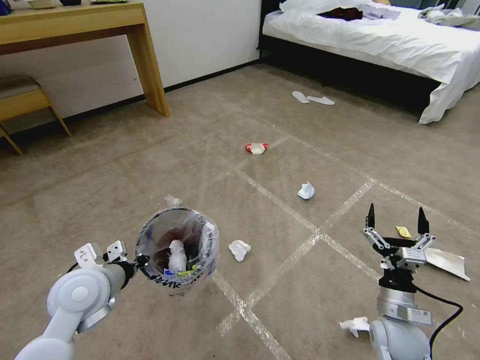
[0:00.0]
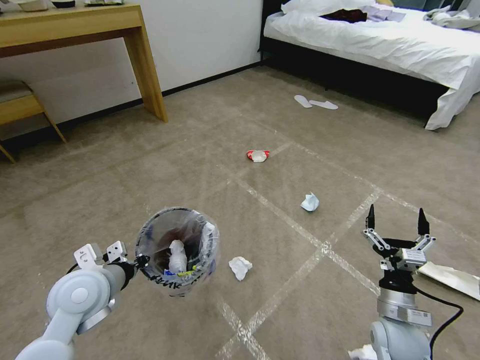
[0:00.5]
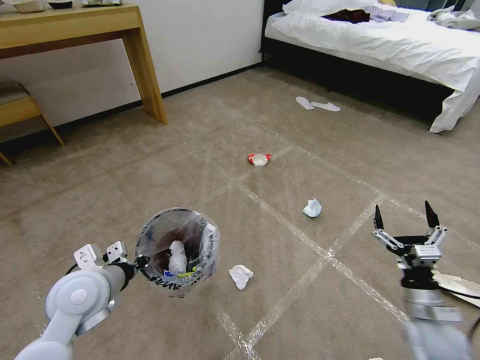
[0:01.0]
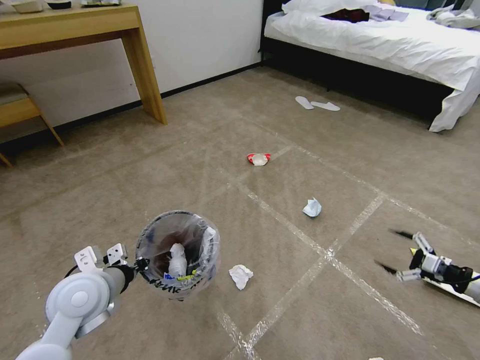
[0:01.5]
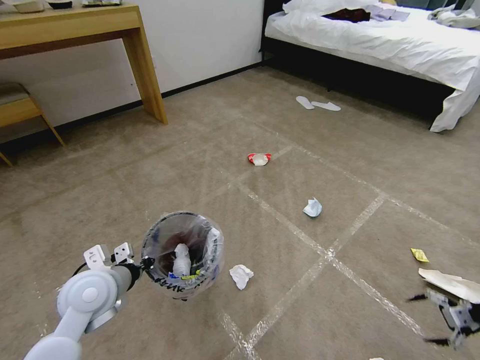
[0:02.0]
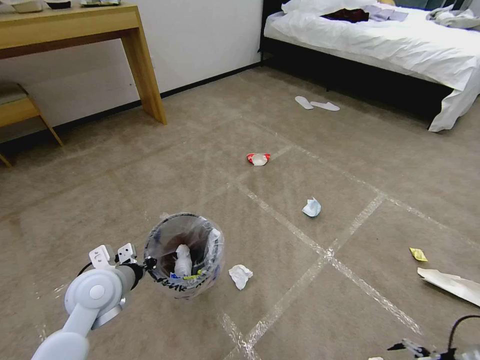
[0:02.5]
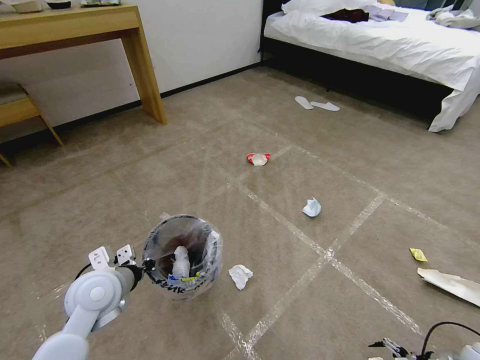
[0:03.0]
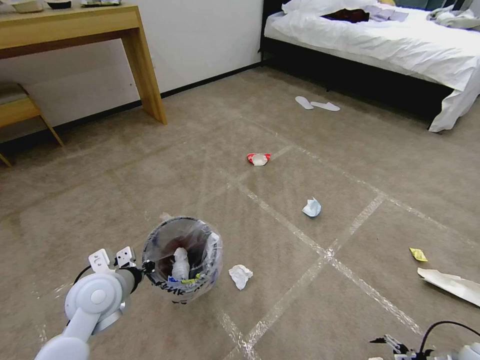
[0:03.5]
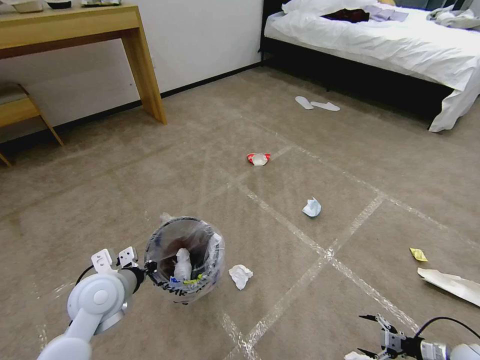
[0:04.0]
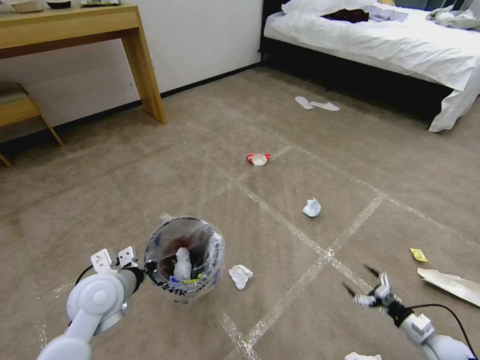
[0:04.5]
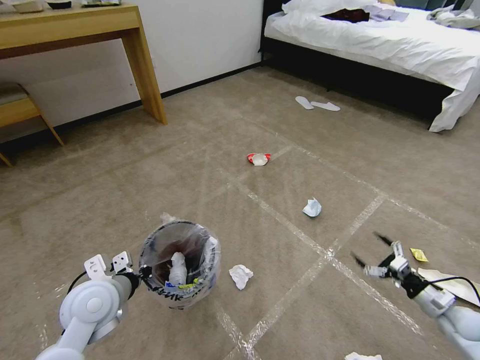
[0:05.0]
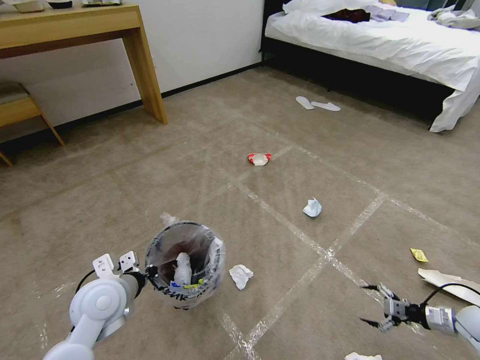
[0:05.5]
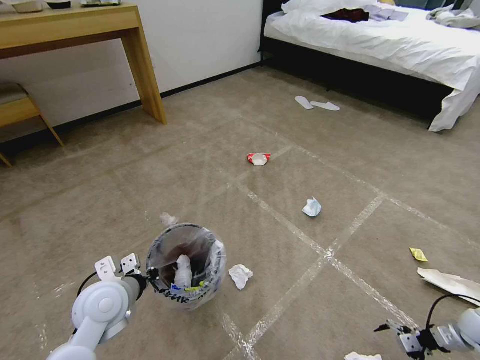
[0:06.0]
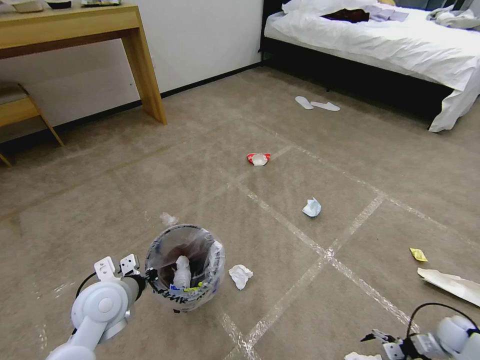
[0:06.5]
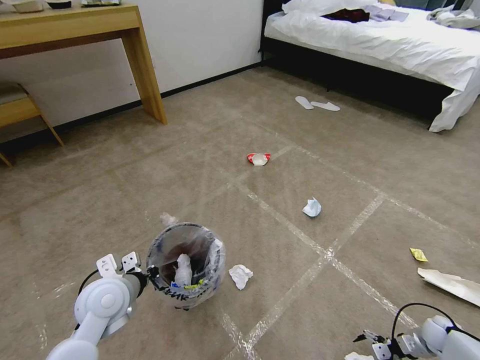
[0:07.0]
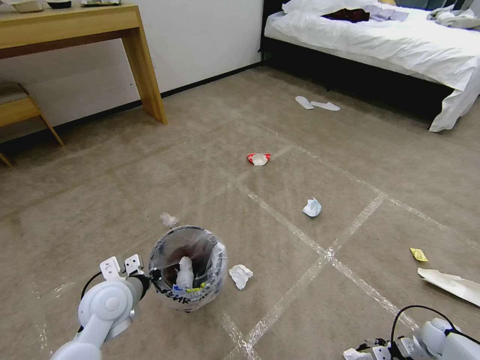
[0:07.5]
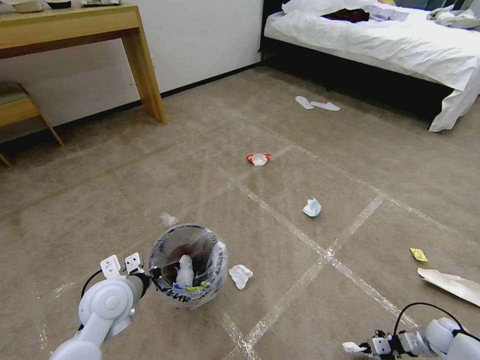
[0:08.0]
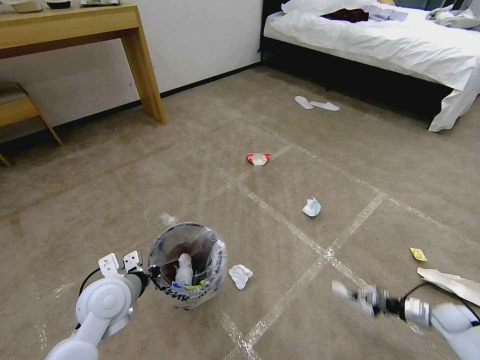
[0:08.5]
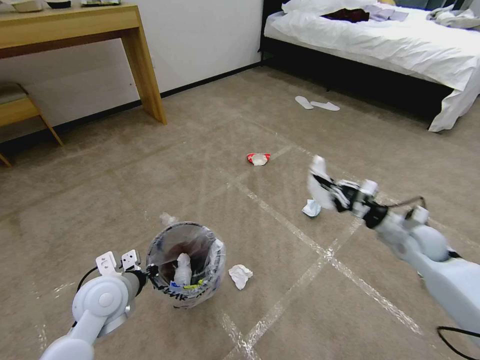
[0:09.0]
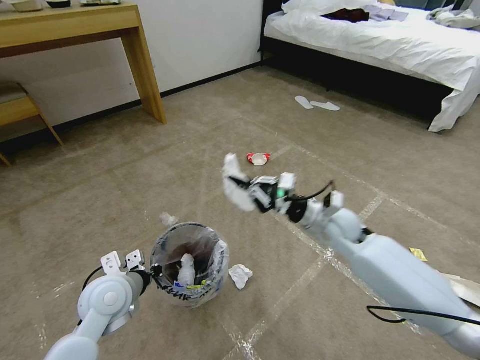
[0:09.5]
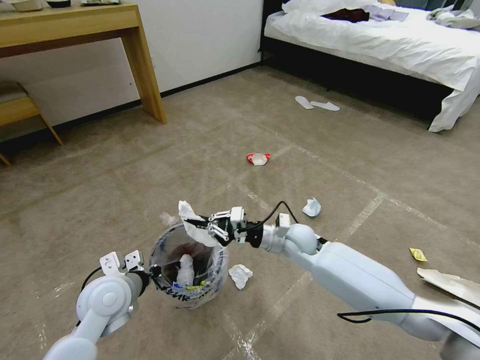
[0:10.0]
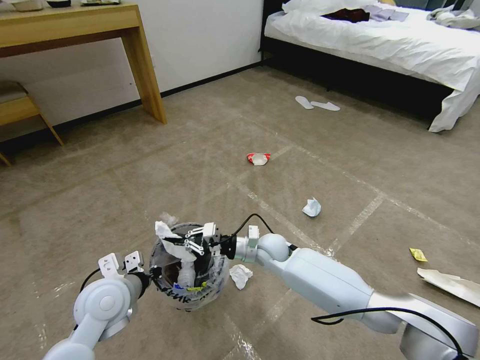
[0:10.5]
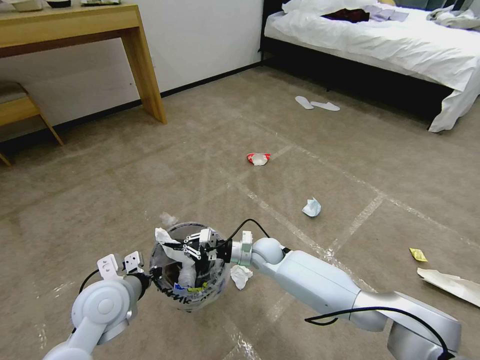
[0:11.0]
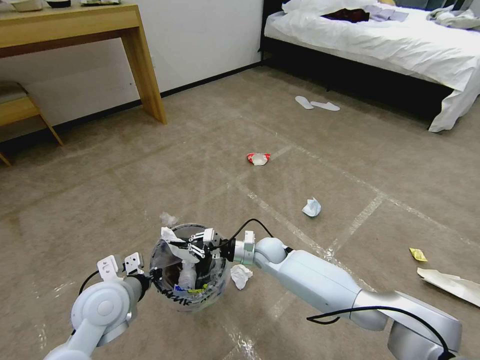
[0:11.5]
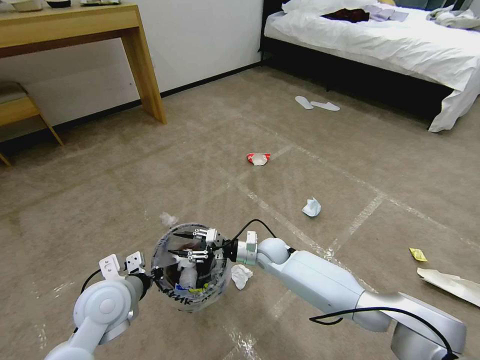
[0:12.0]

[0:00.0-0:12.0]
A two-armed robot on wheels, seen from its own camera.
Task of the whole recording: Pick up the trash bin and place the garbage on the floor into it.
0:00.0 to 0:02.0: The right gripper heads to the right, covering roughly 35 cm.
0:02.0 to 0:04.0: The right gripper moves downward and to the left, some 20 cm.
0:04.0 to 0:06.0: The right gripper is displaced forward and upward by some 10 cm, and travels to the left and back again, approximately 5 cm each way.
0:06.0 to 0:08.0: The right gripper heads downward, covering approximately 10 cm, and closes.
0:08.0 to 0:10.0: The right gripper goes roughly 50 cm to the left and upward.
0:10.0 to 0:12.0: The right gripper moves downward and to the left, about 10 cm, and opens up.

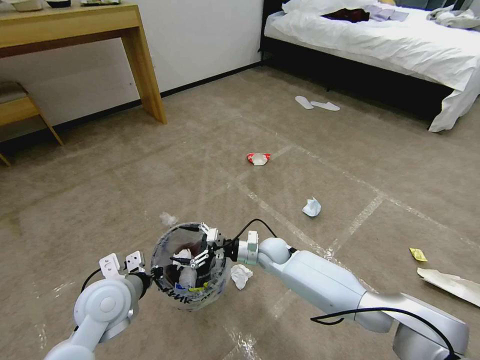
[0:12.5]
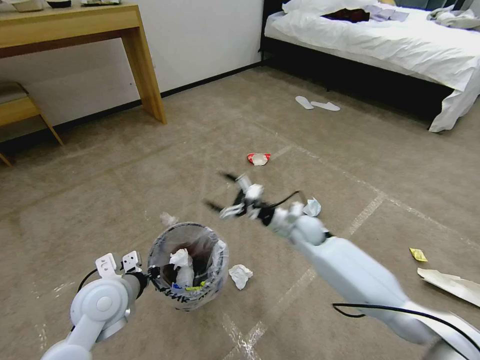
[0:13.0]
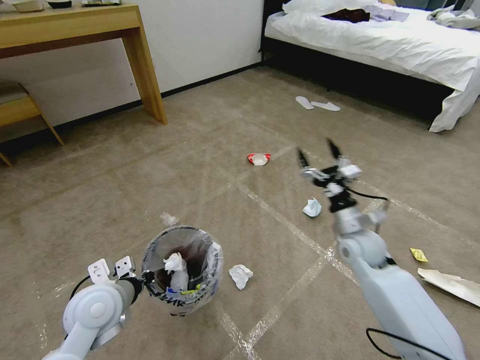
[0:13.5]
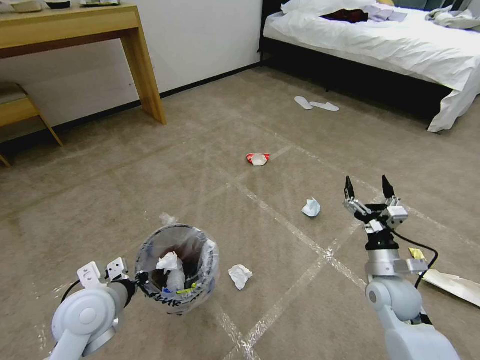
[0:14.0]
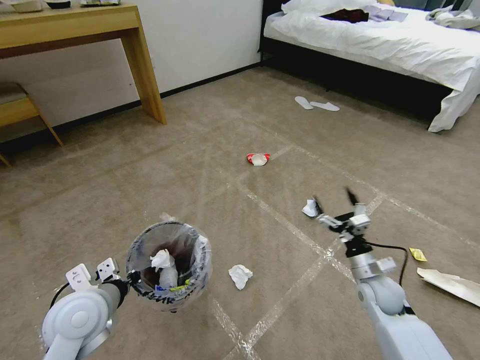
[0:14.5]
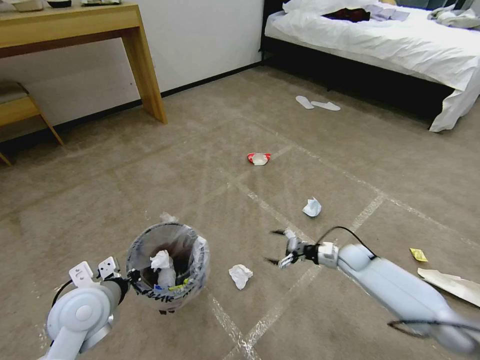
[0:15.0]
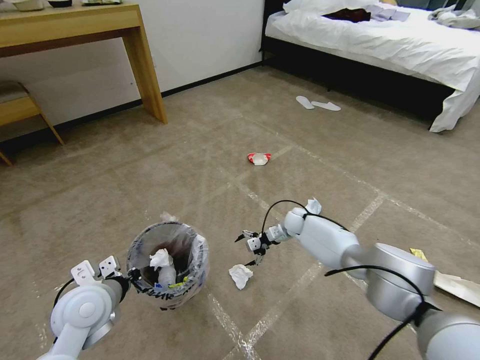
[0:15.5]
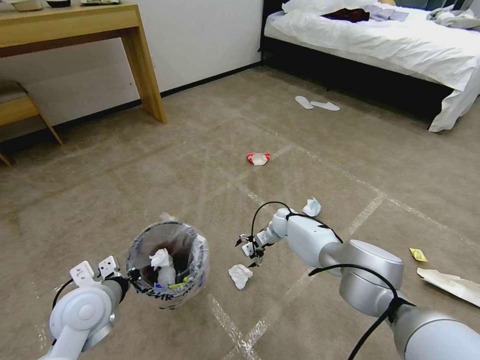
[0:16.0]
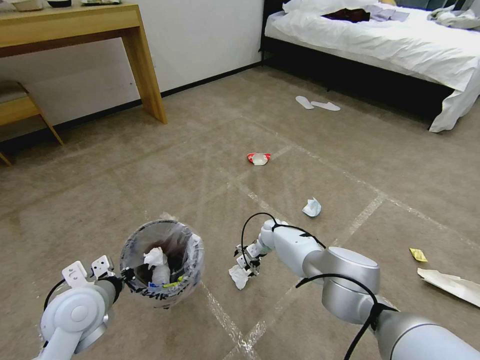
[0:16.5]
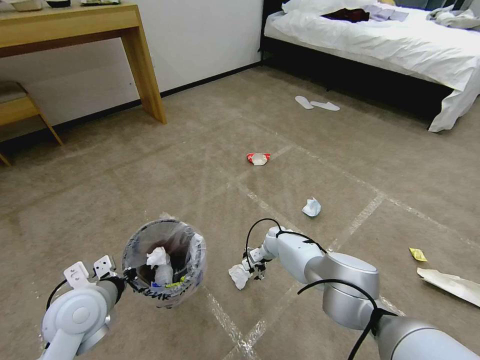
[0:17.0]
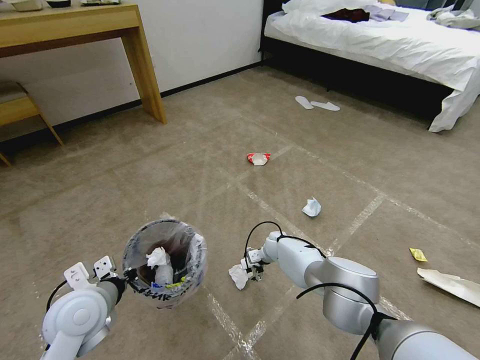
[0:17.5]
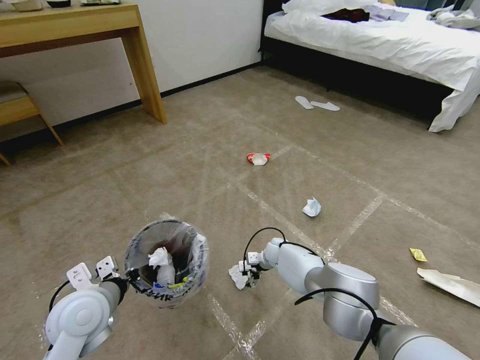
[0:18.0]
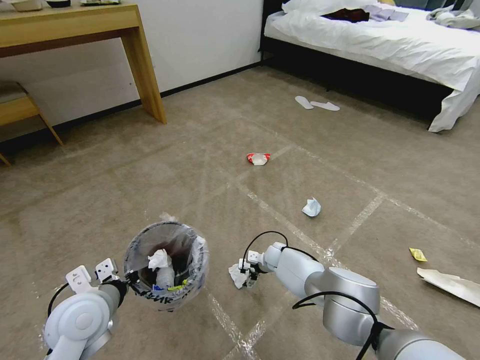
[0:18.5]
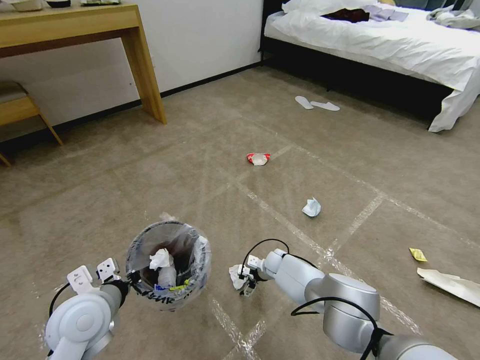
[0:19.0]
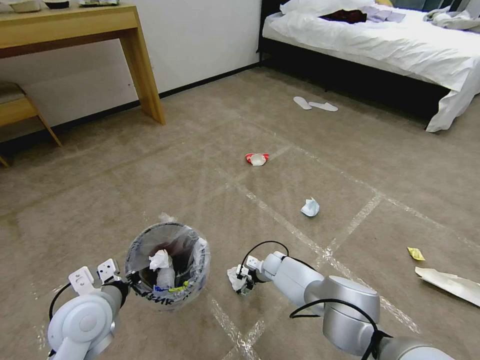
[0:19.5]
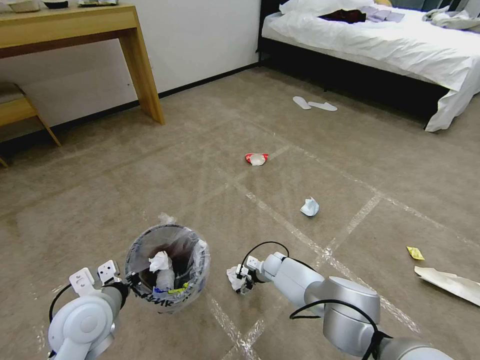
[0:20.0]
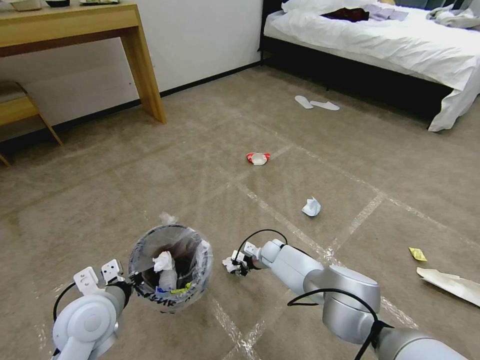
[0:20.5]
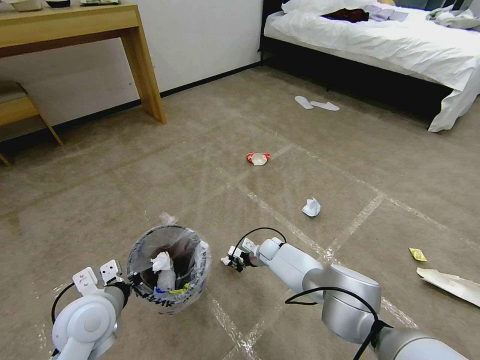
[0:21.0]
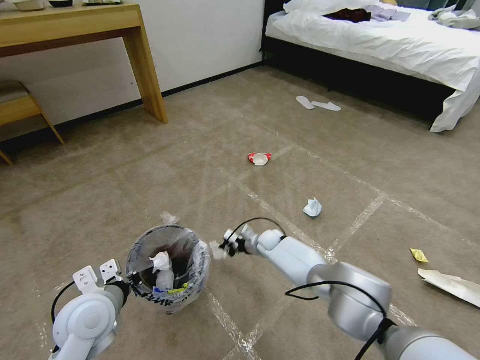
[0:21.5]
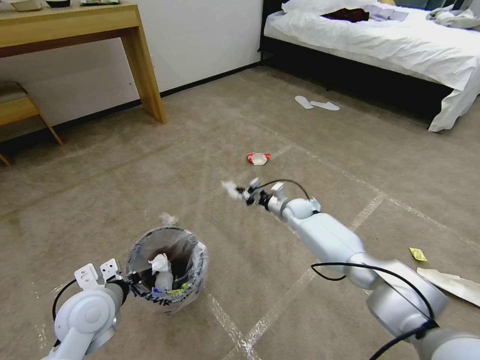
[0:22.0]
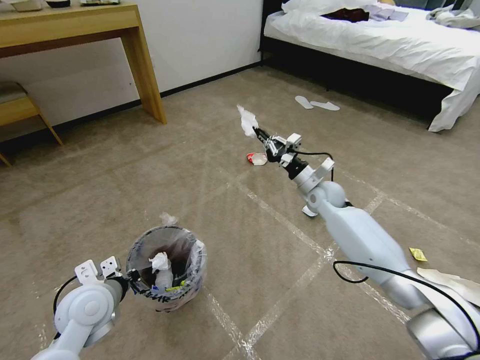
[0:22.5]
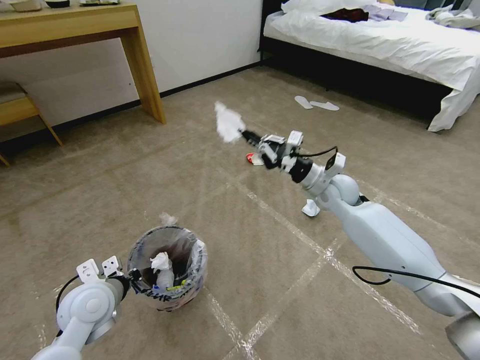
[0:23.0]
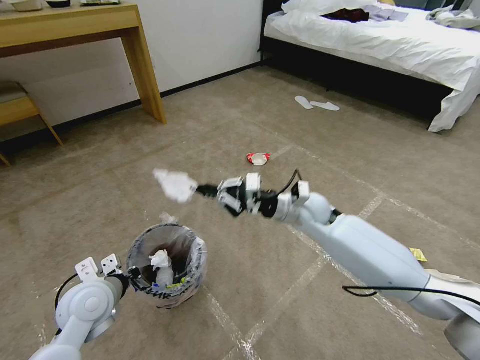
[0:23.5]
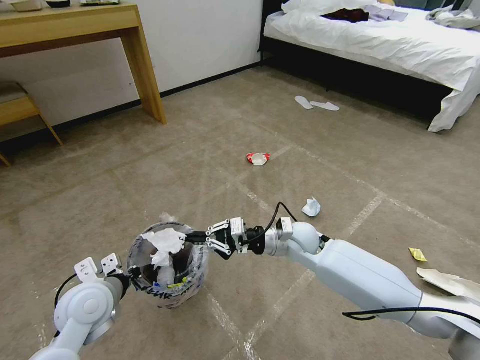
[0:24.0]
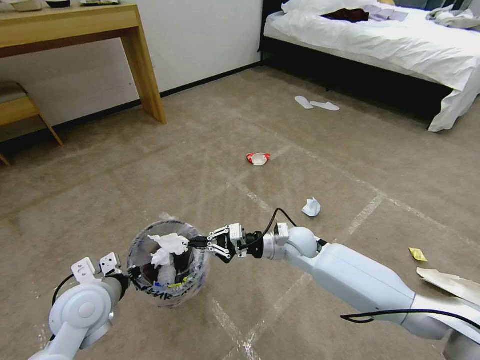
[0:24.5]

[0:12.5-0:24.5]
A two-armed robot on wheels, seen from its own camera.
Task of the whole recording: Pick up the trash bin and place the garbage on the floor into it.
0:12.5 to 0:14.5: The right gripper shifts roughly 30 cm to the right and backward.
0:14.5 to 0:16.5: The right gripper heads forward and to the left, covering roughly 30 cm.
0:16.5 to 0:18.5: The right gripper shifts approximately 10 cm downward and backward.
0:18.5 to 0:20.5: The right gripper closes.
0:20.5 to 0:22.5: The right gripper is displaced upward and to the right by roughly 30 cm, and closes its fingers.
0:22.5 to 0:24.5: The right gripper goes about 15 cm backward, to the left and downward.

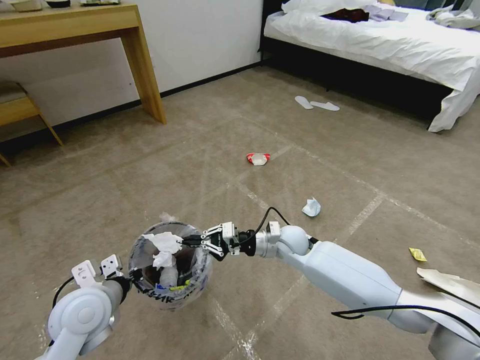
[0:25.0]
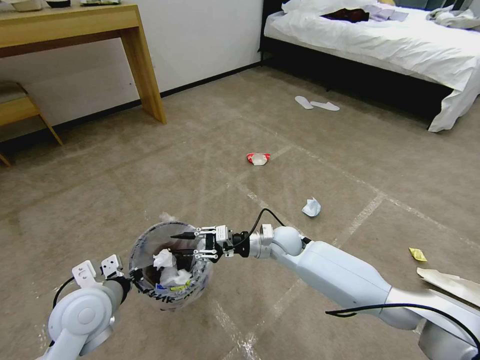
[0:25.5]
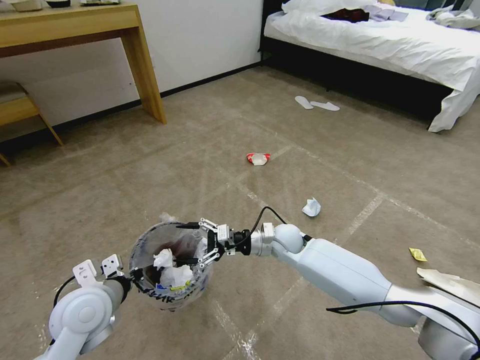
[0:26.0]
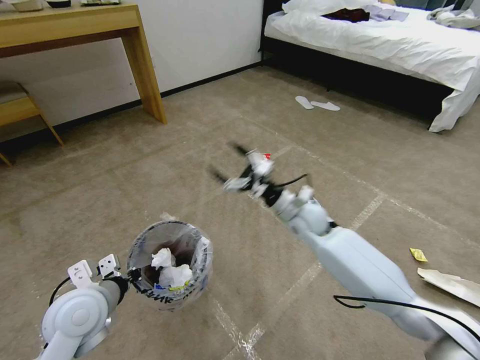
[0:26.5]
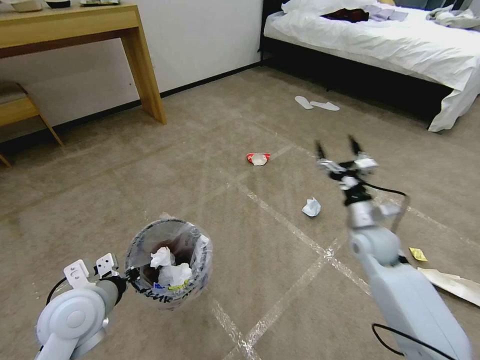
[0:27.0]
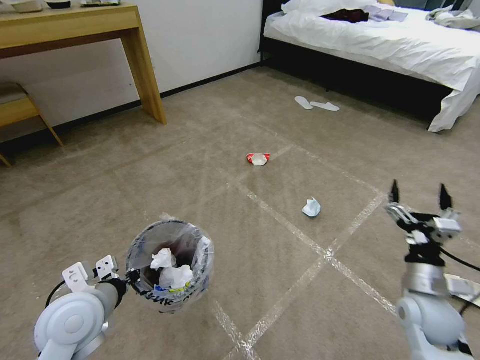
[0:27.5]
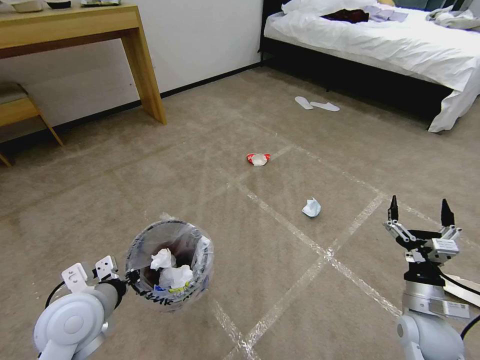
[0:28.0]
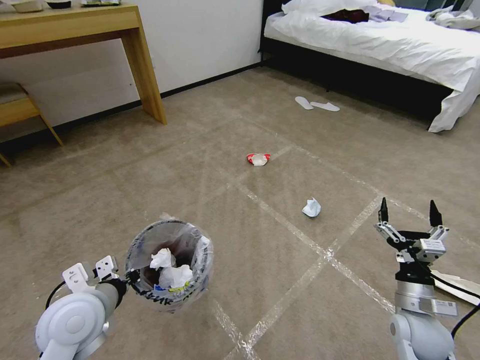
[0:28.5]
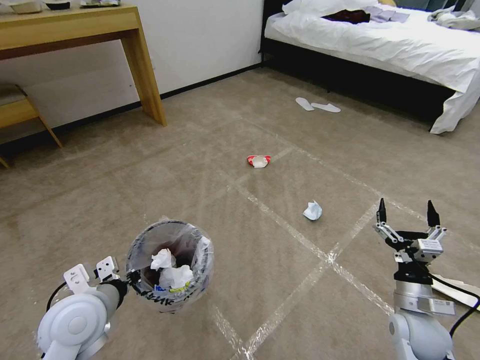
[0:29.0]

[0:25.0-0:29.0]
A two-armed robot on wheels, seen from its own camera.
Task of the whole recording: Pick up the trash bin and place the garbage on the floor into it.
0:25.0 to 0:27.0: The right gripper goes approximately 20 cm to the right, and opens its fingers.
0:27.0 to 0:29.0: The right gripper travels backward and downward by about 20 cm.
